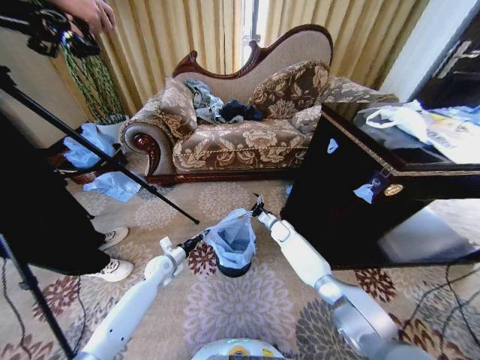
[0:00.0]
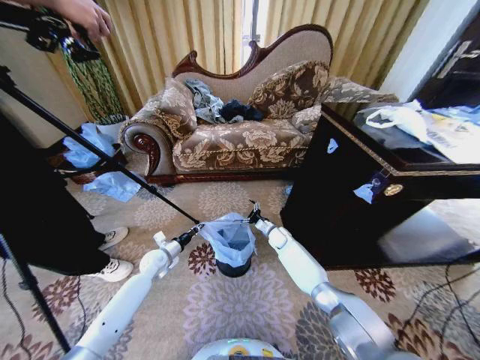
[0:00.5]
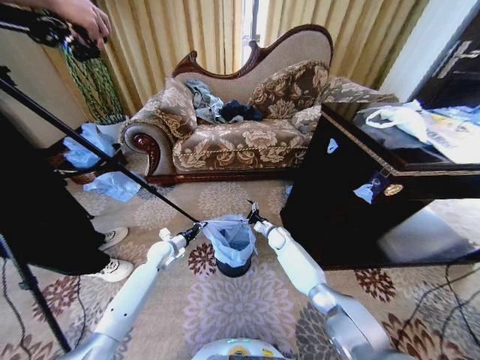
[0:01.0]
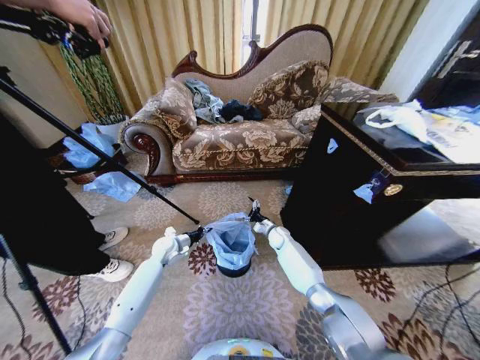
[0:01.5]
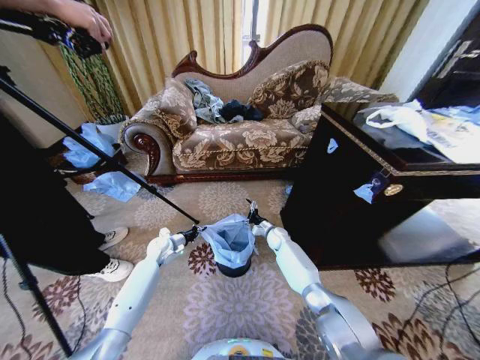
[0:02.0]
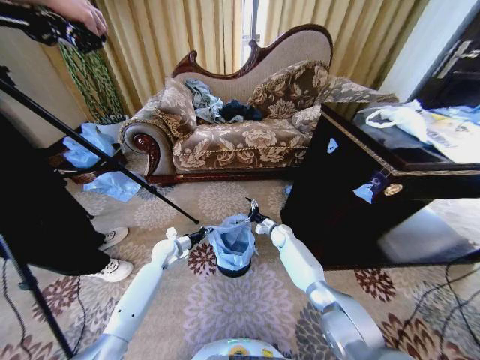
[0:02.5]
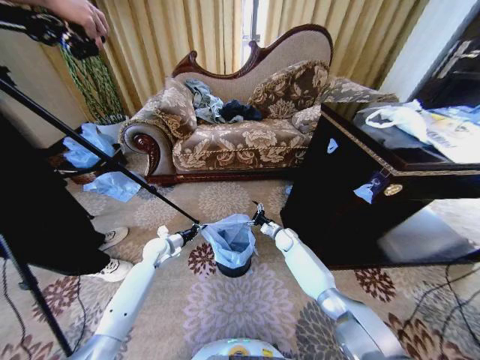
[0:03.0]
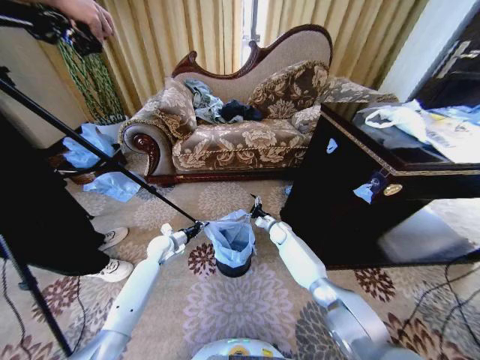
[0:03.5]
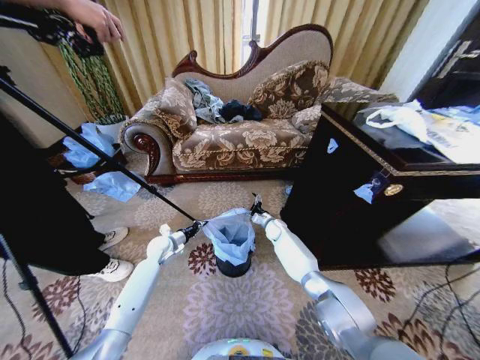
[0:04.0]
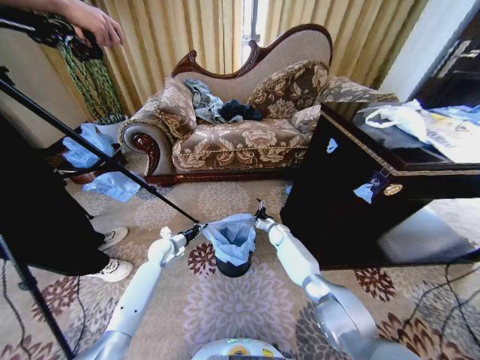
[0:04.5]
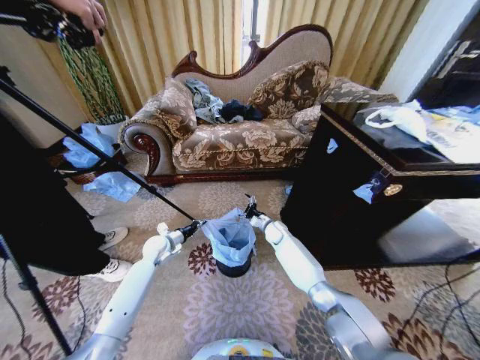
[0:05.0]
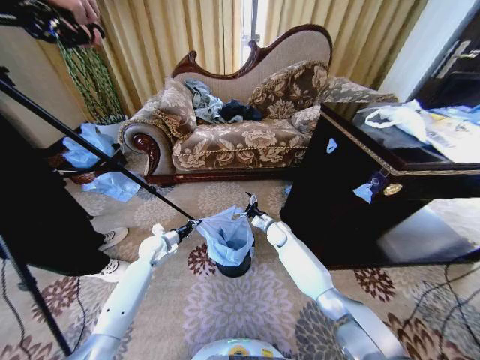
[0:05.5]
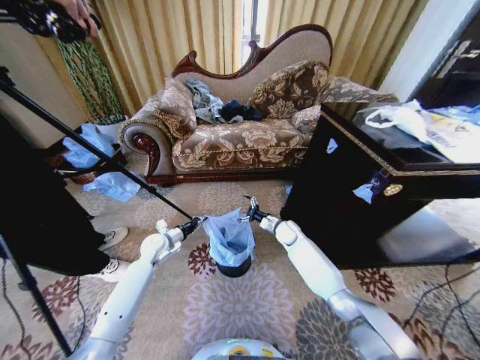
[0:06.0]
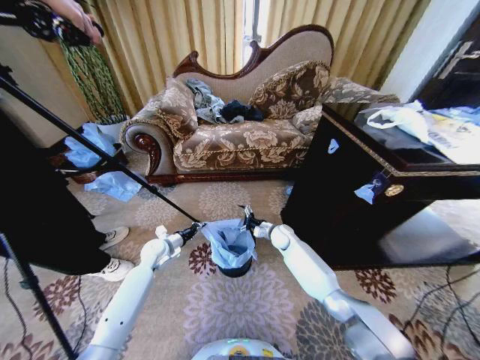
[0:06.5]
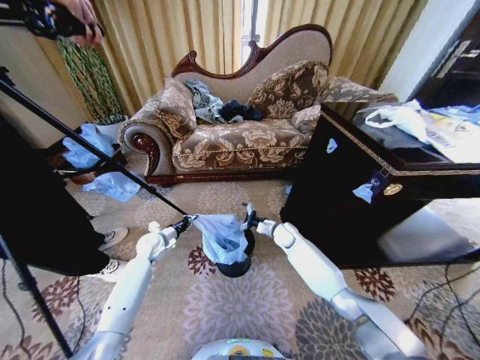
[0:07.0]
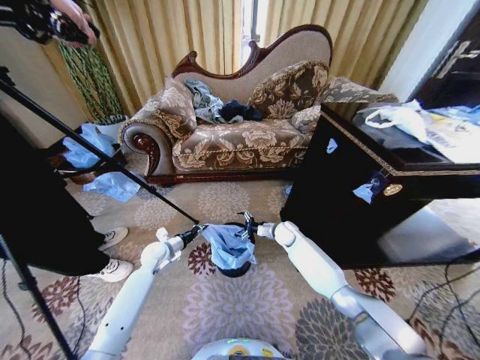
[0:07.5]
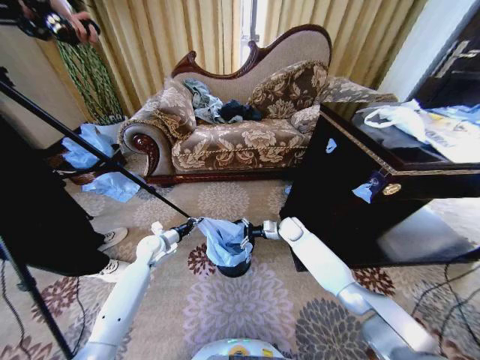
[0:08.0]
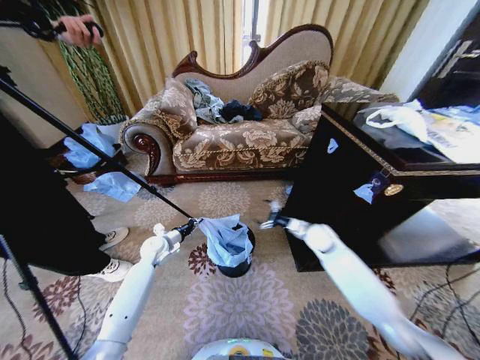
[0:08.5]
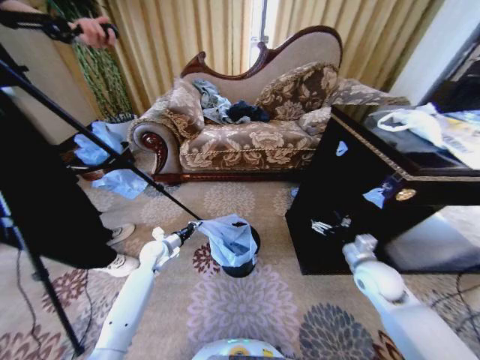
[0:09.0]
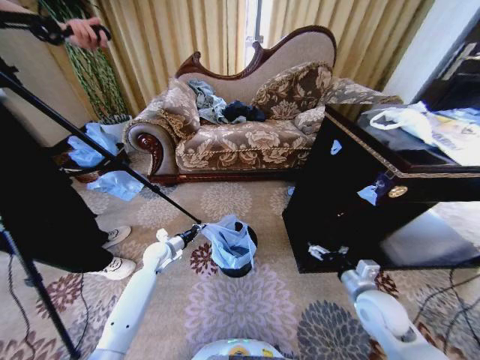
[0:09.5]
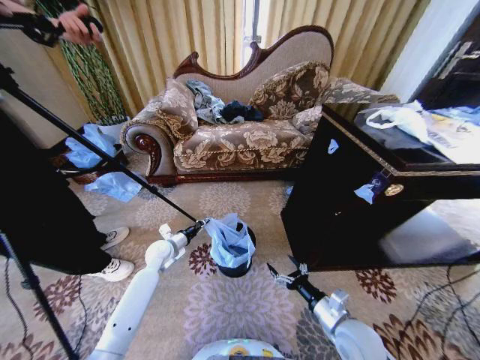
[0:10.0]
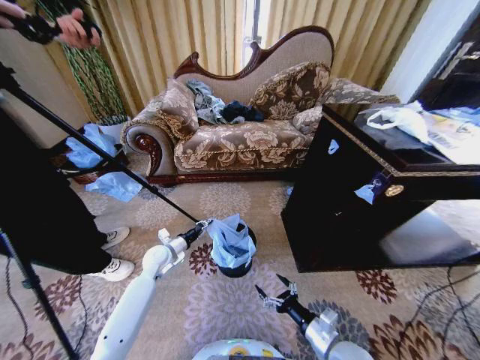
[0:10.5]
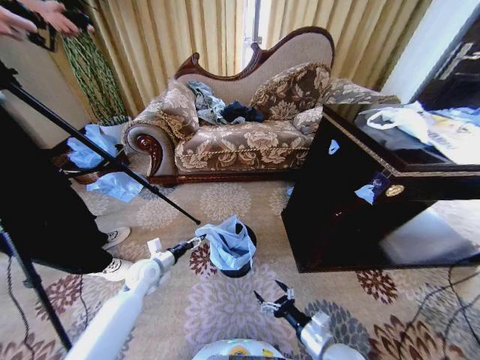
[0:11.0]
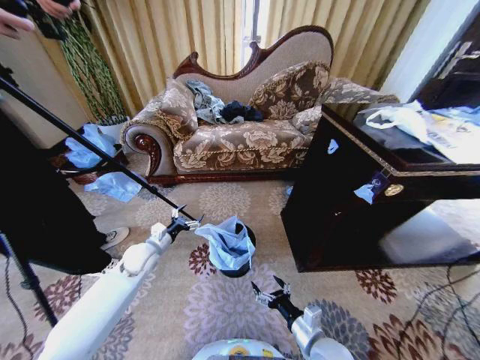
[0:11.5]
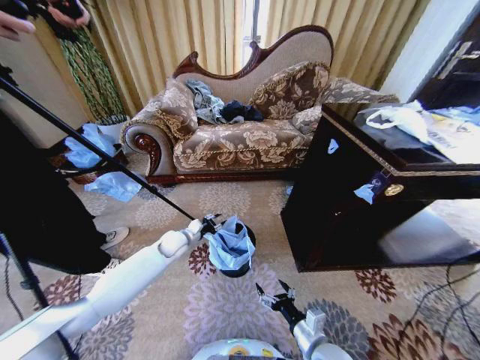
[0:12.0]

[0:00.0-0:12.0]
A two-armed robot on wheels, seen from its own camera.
Task of the whole recording: Place a garbage bag over the trash bin.
0:00.0 to 0:02.0: The left gripper moves forward, approximately 5 cm.
0:02.0 to 0:04.0: The grippers make only small movements.
0:04.0 to 0:06.0: The right gripper moves about 5 cm.
0:08.0 to 0:10.0: The right gripper moves backward, approximately 35 cm.
0:10.0 to 0:12.0: The right gripper shifts some 10 cm to the left and backward. The left gripper goes backward and returns, approximately 5 cm each way, and opens up.

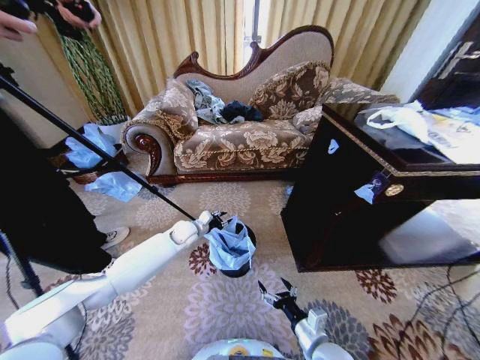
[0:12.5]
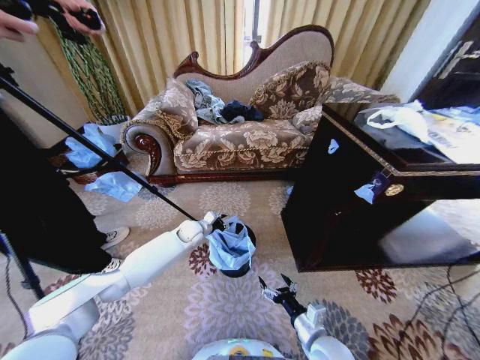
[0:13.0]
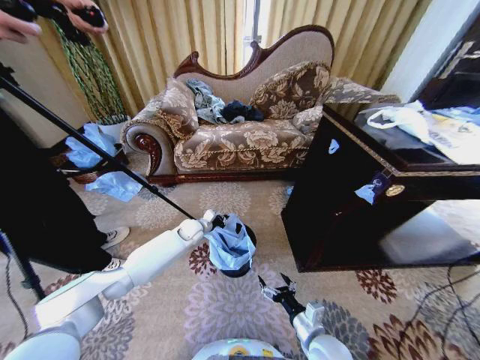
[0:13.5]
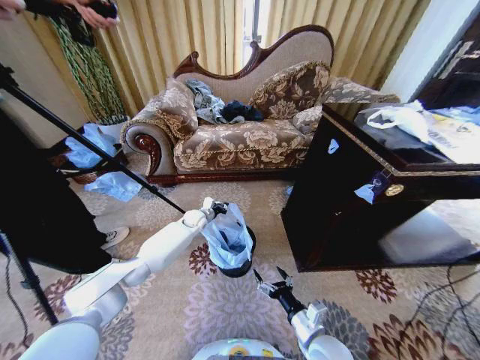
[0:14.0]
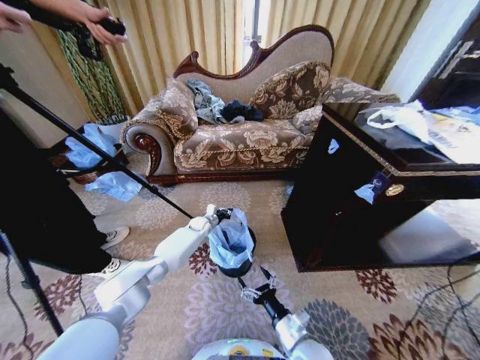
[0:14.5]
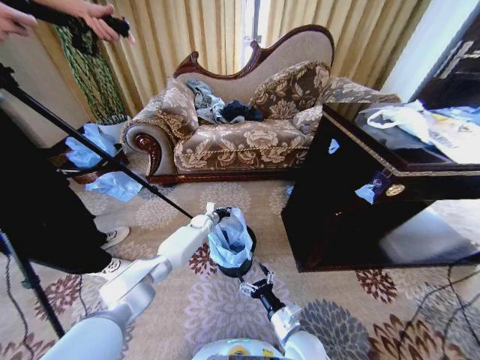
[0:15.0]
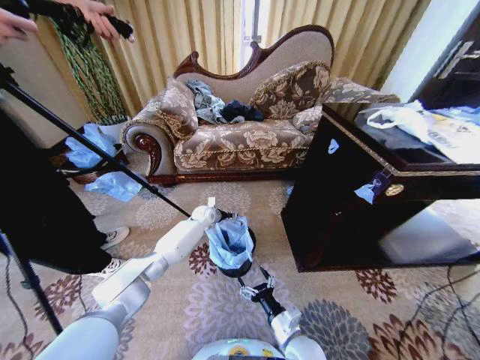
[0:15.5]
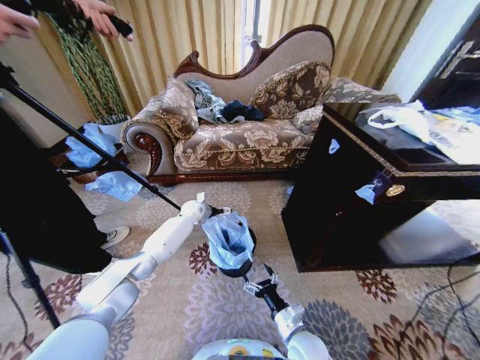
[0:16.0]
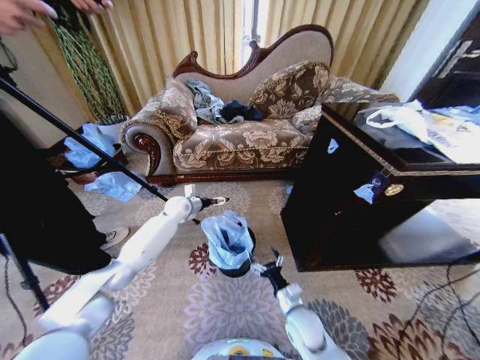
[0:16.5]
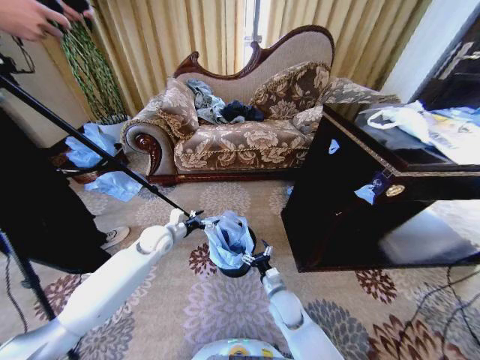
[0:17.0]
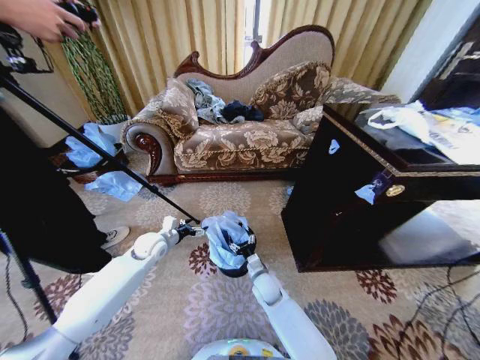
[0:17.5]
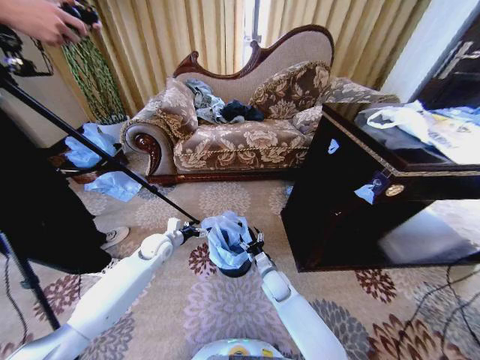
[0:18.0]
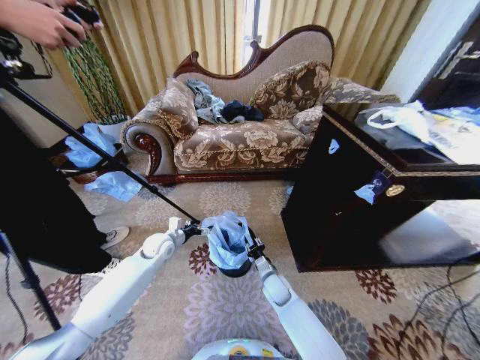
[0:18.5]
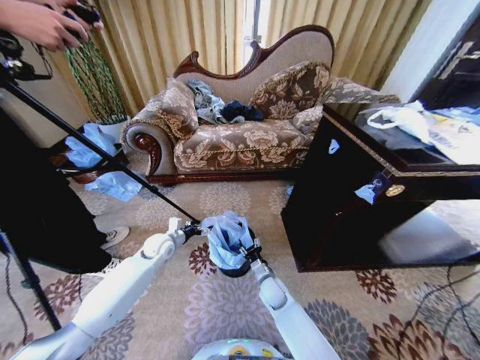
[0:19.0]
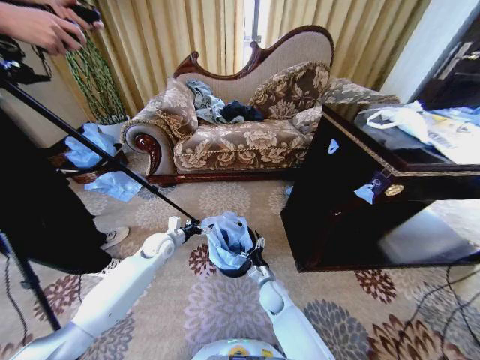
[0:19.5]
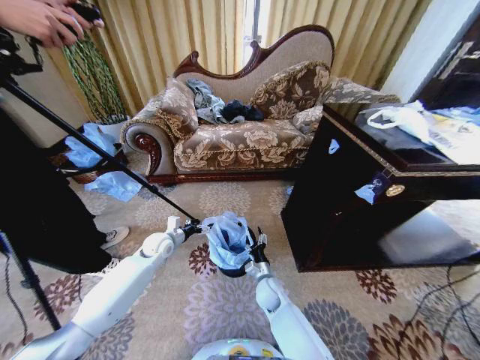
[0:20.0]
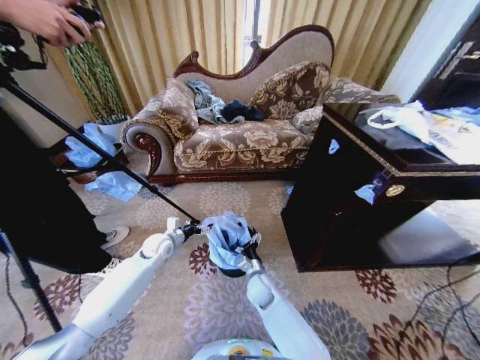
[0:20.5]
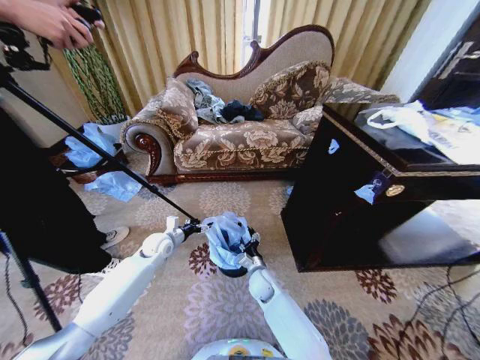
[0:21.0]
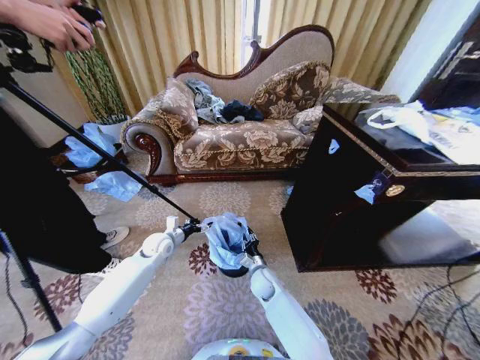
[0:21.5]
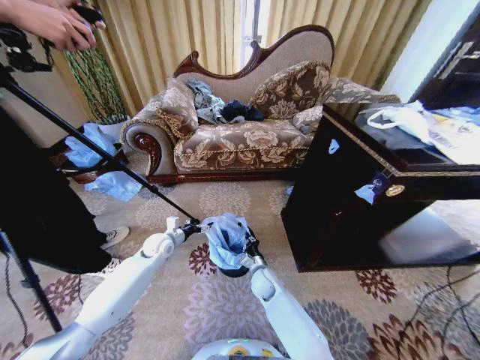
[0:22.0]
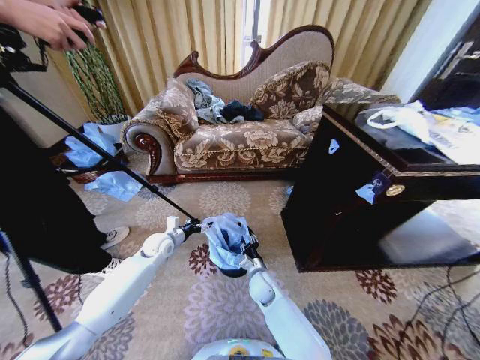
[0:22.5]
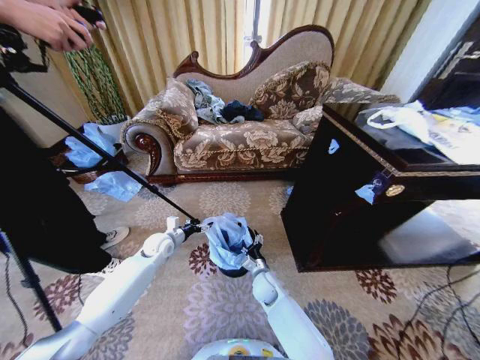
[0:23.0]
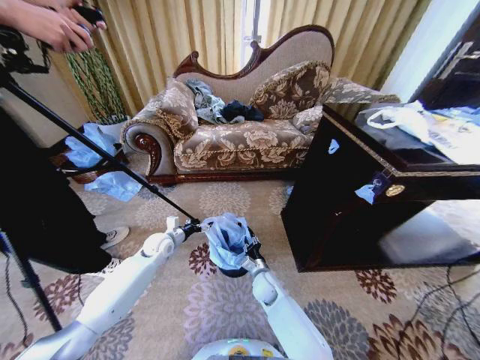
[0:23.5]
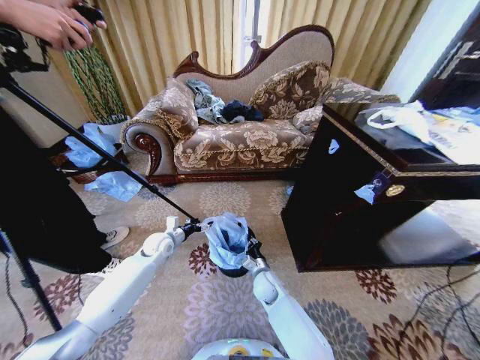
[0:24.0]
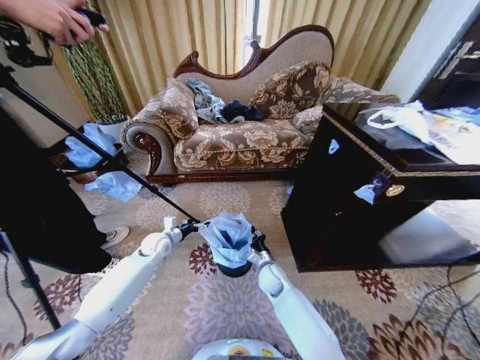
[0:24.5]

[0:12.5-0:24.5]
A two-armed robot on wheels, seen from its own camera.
Task of the whole recording: Place a garbage bag over the trash bin.
0:12.5 to 0:14.5: The left gripper is displaced forward and downward by roughly 10 cm, and closes up.
0:14.5 to 0:16.5: The right gripper is displaced forward by about 5 cm. The left gripper heads upward and to the left, covering about 15 cm, and opens.
0:16.5 to 0:18.5: The left gripper heads backward and downward, covering roughly 15 cm, while the right gripper heads forward and to the left, covering roughly 15 cm, and closes its fingers.
0:18.5 to 0:20.5: The right gripper shifts approximately 5 cm to the left, and opens.
0:20.5 to 0:22.5: The right gripper closes its fingers.
0:22.5 to 0:24.5: The right gripper closes its fingers.

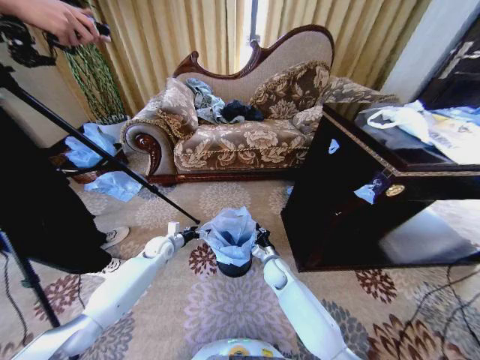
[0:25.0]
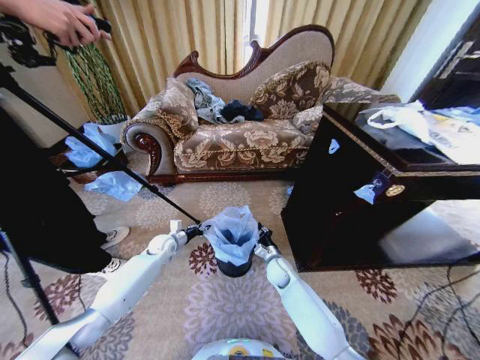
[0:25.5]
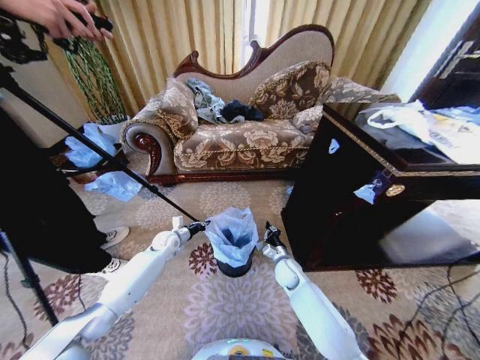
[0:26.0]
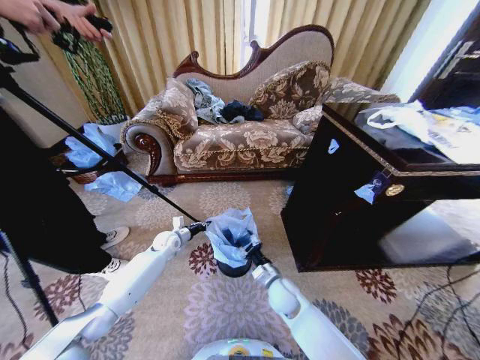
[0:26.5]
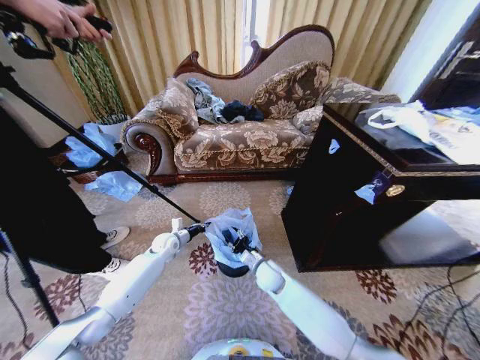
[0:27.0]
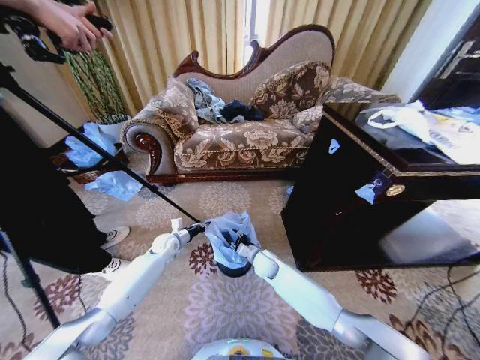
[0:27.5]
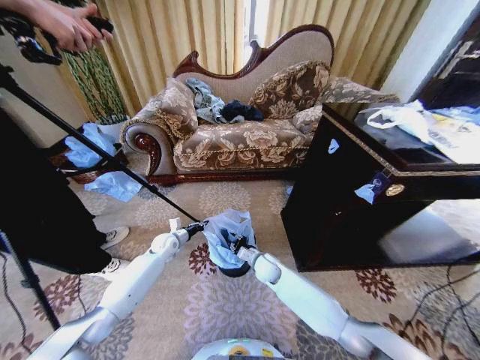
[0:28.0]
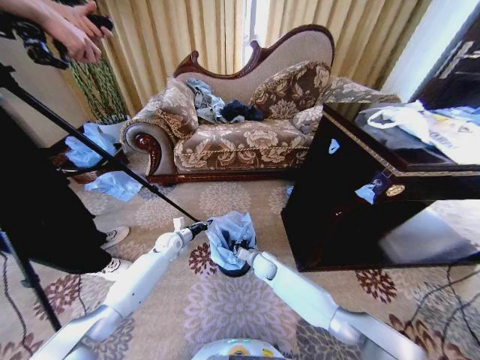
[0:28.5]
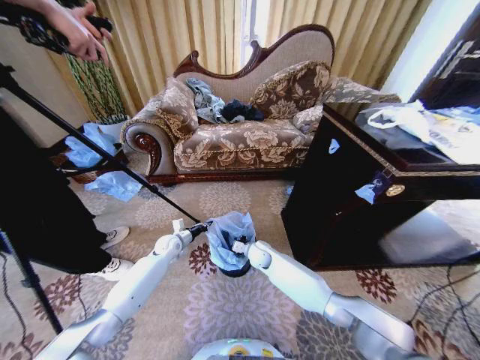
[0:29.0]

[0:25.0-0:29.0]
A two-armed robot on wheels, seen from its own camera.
Task of the whole recording: Place a garbage bag over the trash bin.
0:25.0 to 0:27.0: The right gripper reaches approximately 10 cm backward, then returns, and opens its fingers. The left gripper closes up.
0:27.0 to 0:29.0: The right gripper goes roughly 5 cm forward, and closes up.
